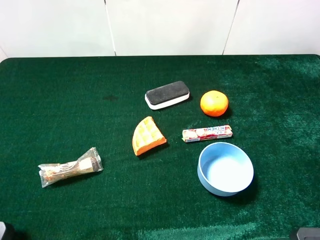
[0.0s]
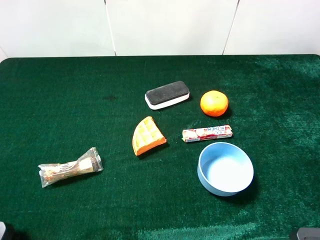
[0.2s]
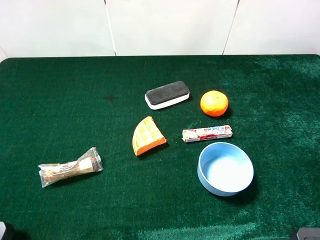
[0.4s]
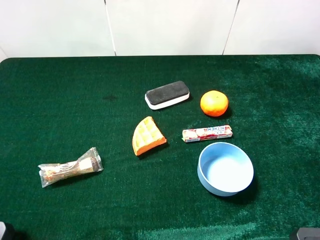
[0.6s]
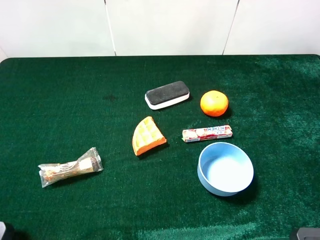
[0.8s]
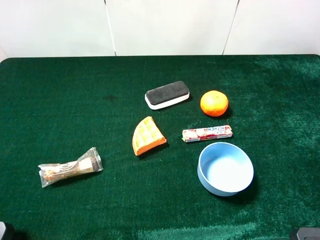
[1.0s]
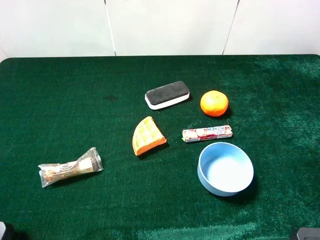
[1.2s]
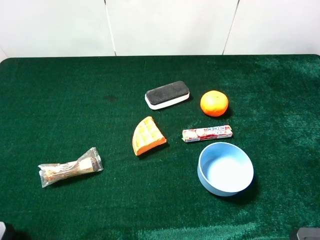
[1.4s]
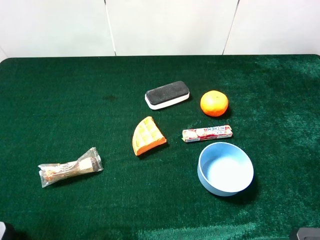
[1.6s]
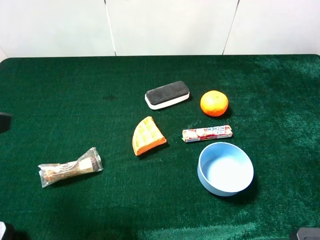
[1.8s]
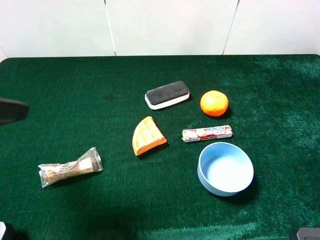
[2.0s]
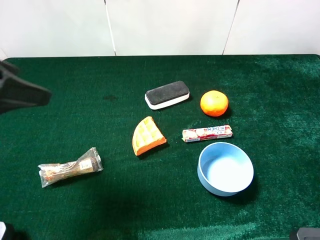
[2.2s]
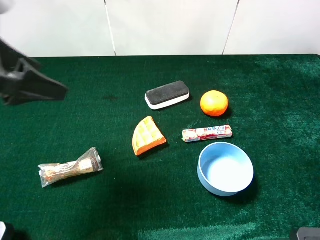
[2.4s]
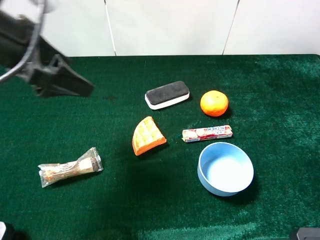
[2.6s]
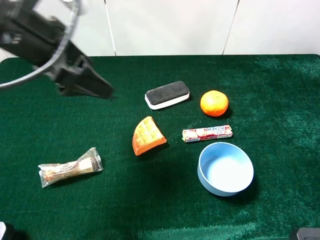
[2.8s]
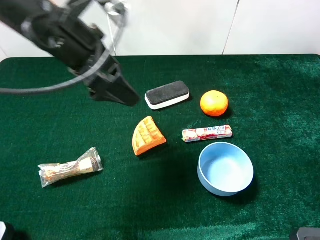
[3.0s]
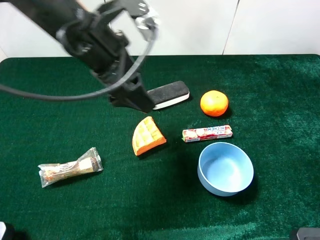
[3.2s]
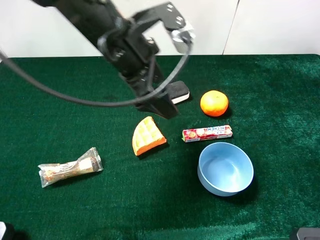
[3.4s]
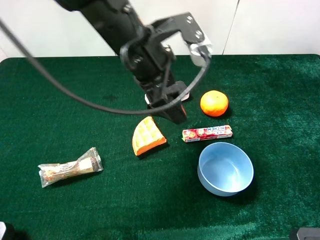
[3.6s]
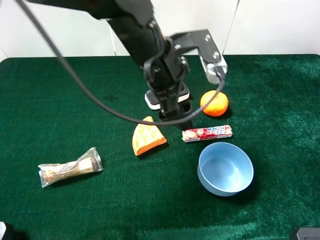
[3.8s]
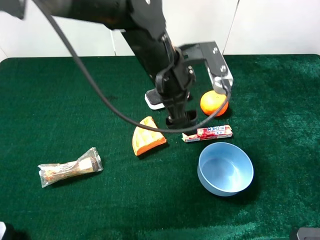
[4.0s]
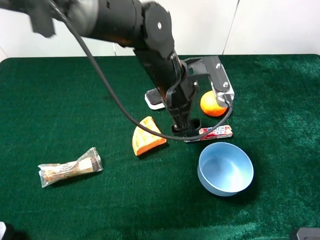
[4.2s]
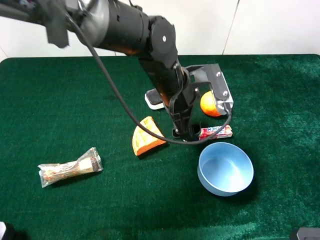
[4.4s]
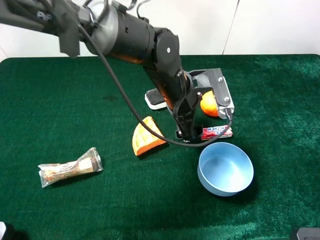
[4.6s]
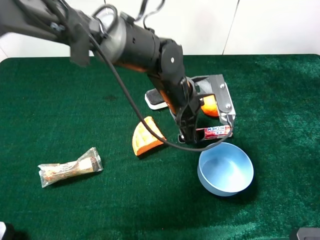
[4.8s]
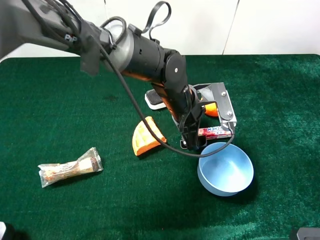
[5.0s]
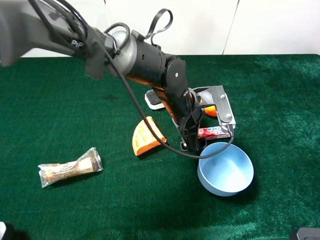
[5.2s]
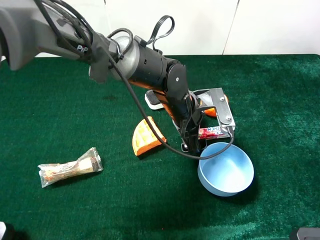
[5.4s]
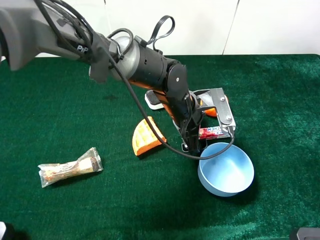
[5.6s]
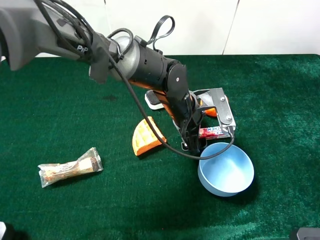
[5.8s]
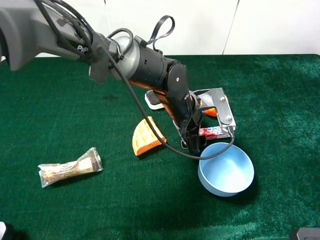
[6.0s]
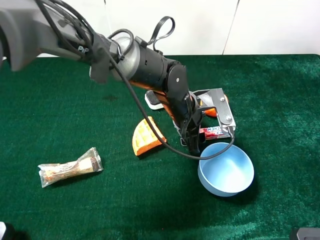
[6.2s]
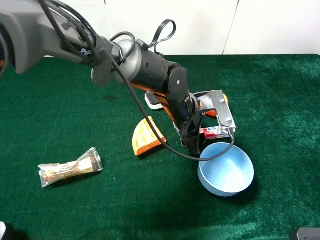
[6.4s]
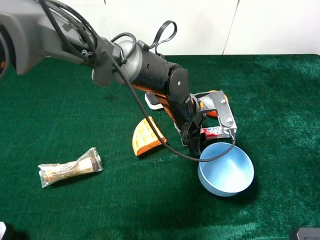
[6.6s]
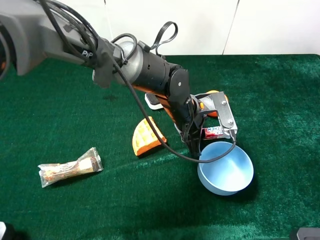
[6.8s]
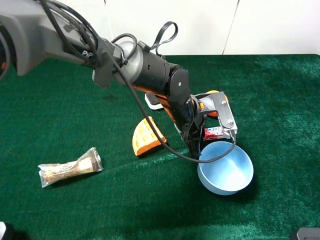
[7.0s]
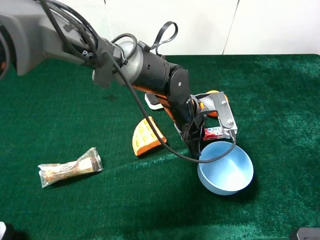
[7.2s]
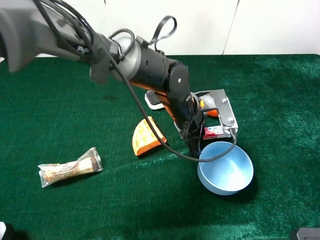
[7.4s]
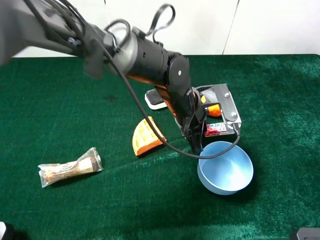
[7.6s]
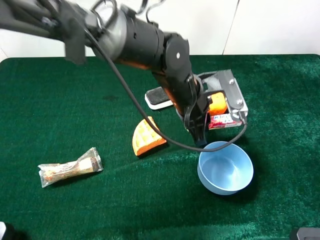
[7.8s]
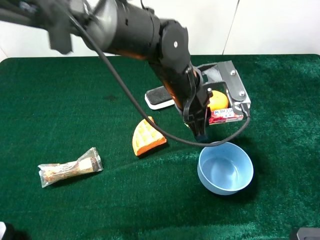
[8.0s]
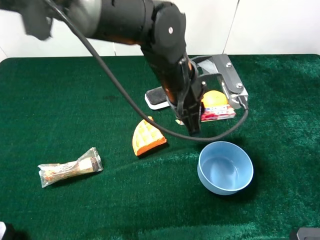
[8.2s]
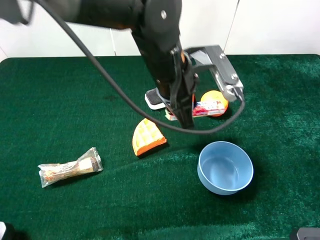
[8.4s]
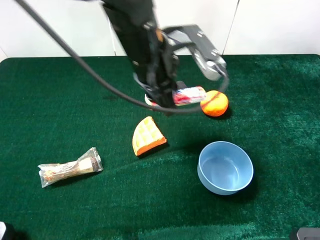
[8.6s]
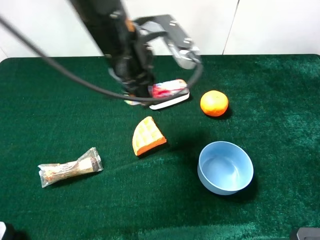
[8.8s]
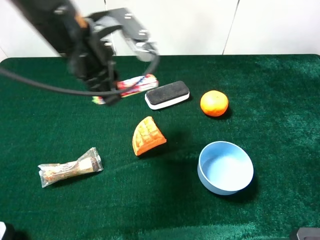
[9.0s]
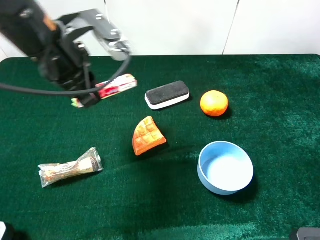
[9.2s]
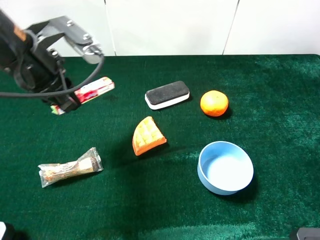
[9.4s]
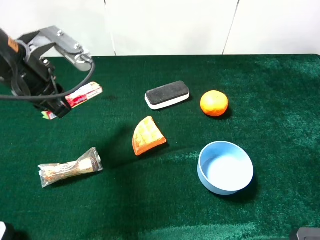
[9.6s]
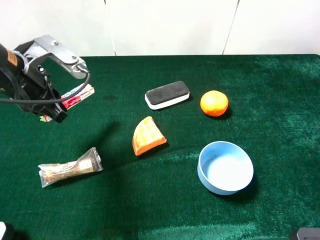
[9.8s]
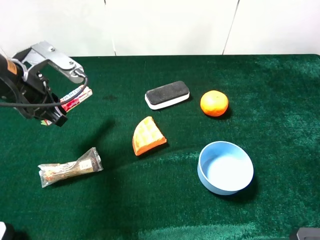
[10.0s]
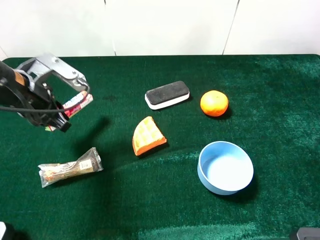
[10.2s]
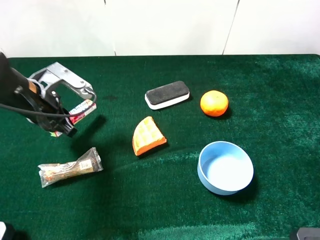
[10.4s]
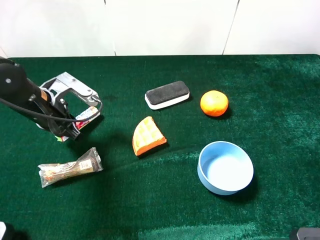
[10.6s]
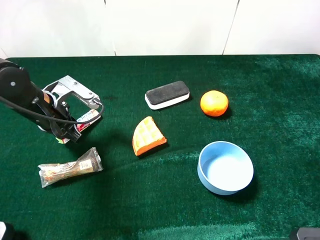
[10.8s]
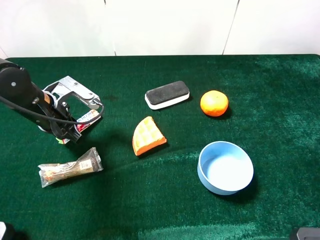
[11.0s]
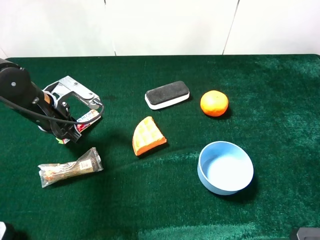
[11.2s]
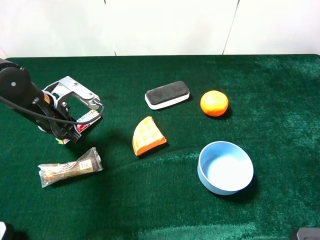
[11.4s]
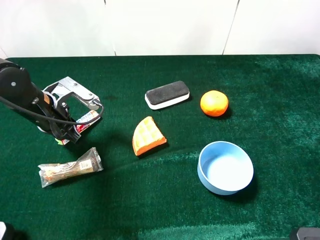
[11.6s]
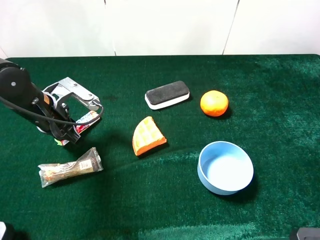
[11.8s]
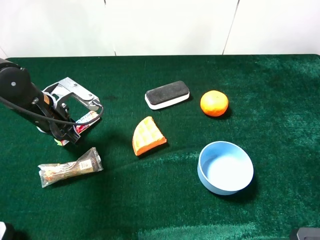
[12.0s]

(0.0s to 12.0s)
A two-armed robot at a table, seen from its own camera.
Task of the whole recording: the gripper move the object.
Step, 0.0s - 6.8s: Grasp the fruit candy with the left gripper.
1.6s - 3.0s: The left gripper goes approximately 25 cm forward and to the right.
3.0s - 4.4s: The left gripper shifts about 20 cm to the right and downward.
4.4s - 6.0s: The left gripper moves downward, roughly 5 cm.
6.0s - 7.6s: The left gripper closes up.
7.6s - 9.0s: The left gripper moves to the left and upward, approximately 20 cm.
9.0s - 10.4s: The left gripper is displaced downward and to the left by roughly 15 cm.
10.4s - 12.0s: The grippers move only a little.

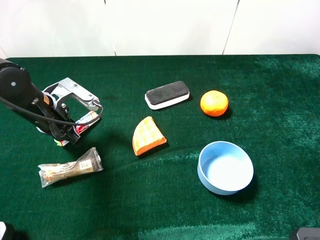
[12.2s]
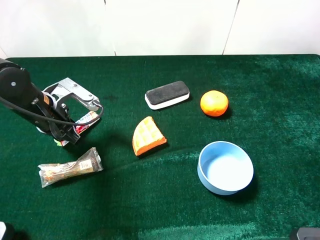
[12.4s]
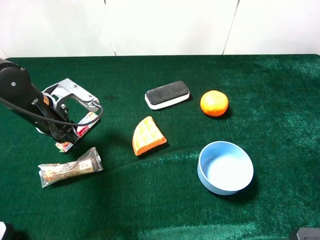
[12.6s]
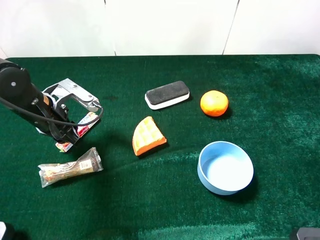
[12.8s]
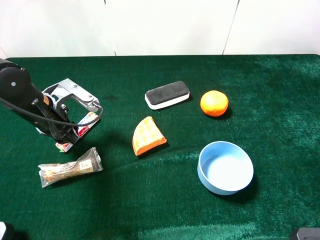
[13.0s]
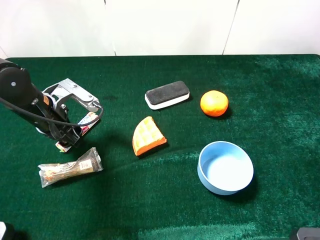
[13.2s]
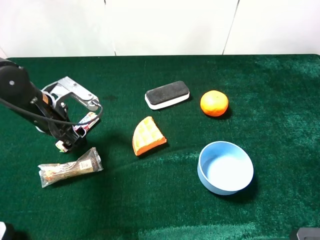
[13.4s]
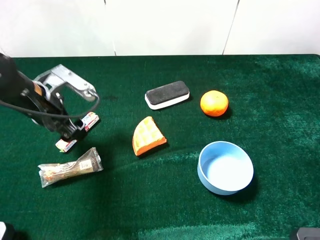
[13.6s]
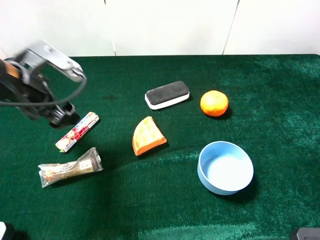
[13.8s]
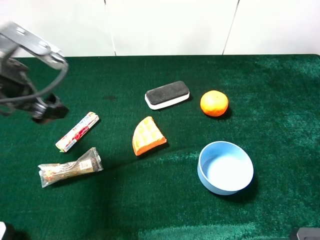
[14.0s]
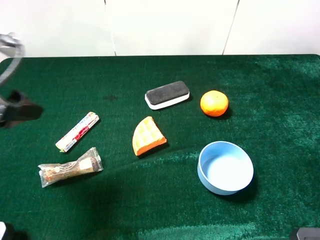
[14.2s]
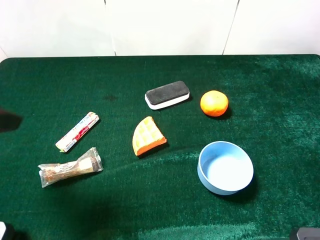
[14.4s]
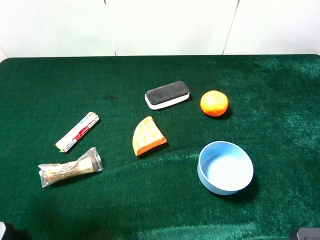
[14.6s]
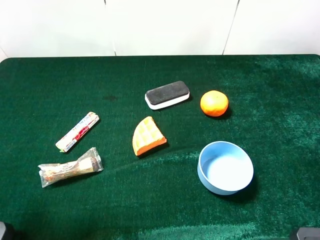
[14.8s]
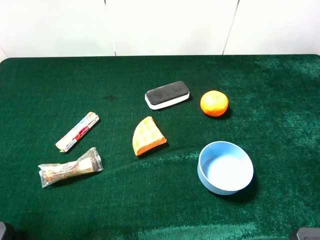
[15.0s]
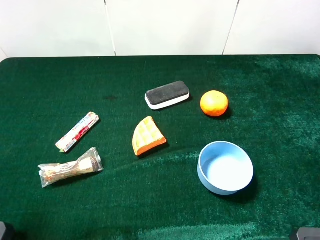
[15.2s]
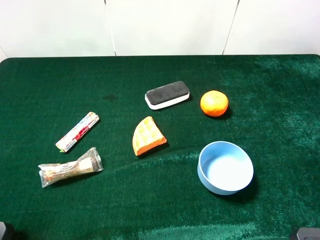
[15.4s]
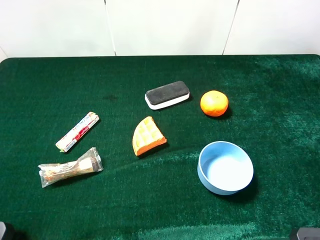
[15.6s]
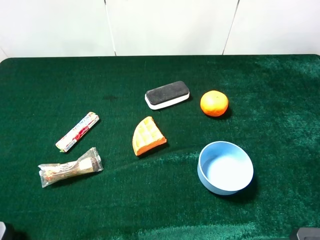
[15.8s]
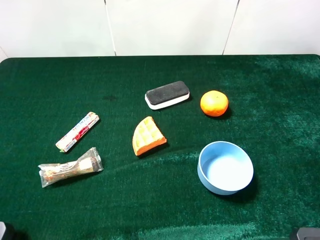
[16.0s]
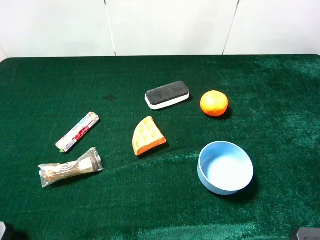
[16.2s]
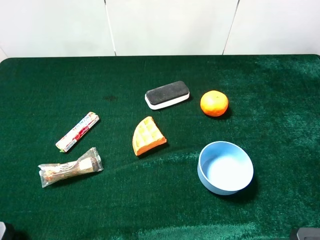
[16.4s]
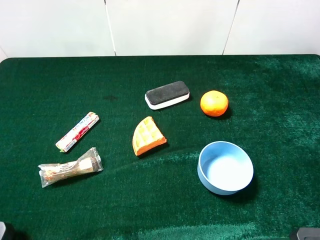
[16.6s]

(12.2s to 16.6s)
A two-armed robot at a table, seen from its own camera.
Task of the whole recording: the gripper move the object.
12.2s - 13.6s: The left gripper opens up.
13.6s - 15.2s: The left gripper goes some 25 cm backward and upward.

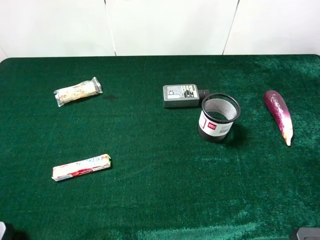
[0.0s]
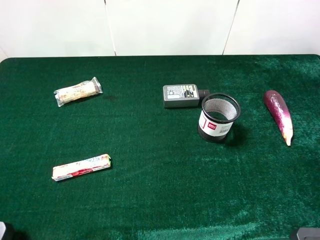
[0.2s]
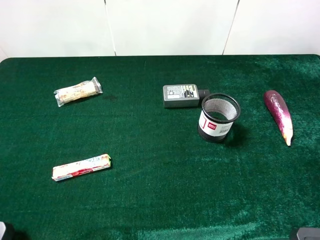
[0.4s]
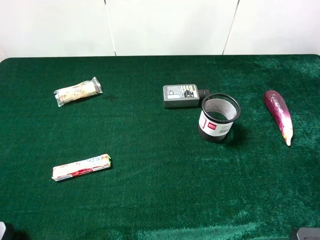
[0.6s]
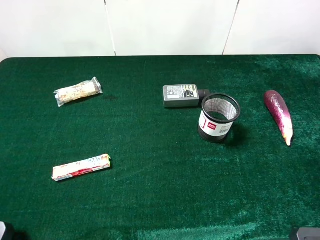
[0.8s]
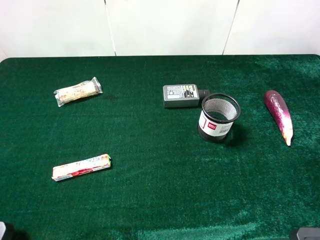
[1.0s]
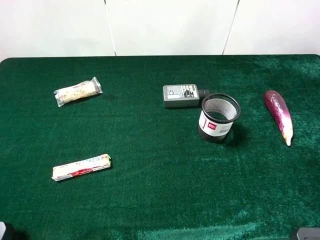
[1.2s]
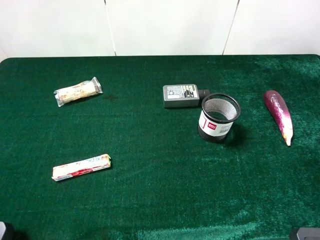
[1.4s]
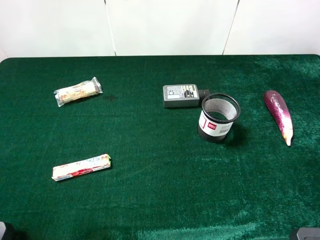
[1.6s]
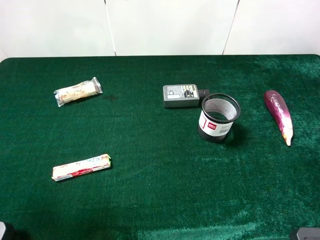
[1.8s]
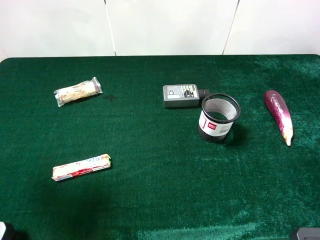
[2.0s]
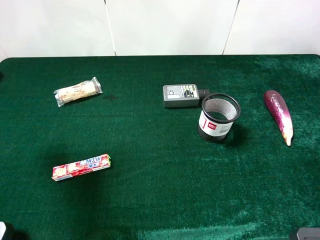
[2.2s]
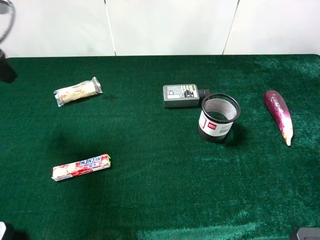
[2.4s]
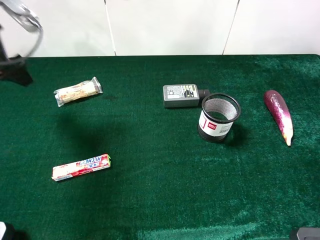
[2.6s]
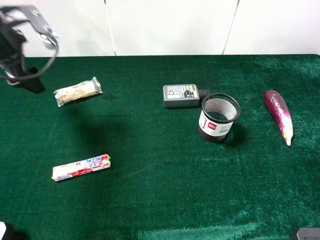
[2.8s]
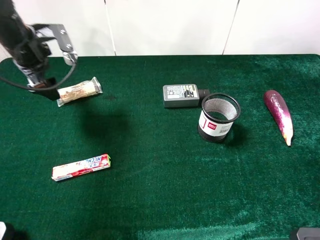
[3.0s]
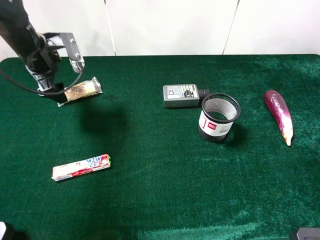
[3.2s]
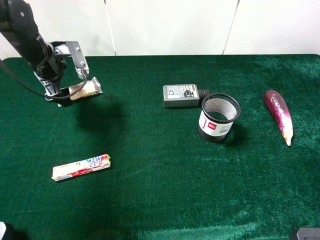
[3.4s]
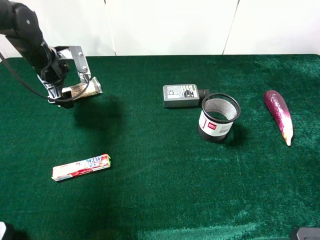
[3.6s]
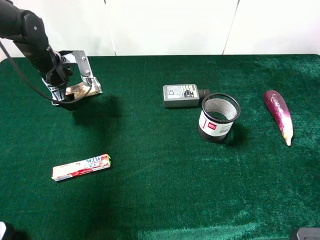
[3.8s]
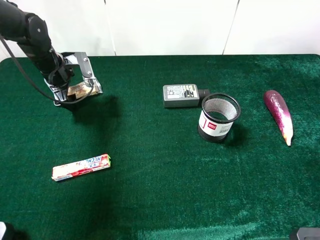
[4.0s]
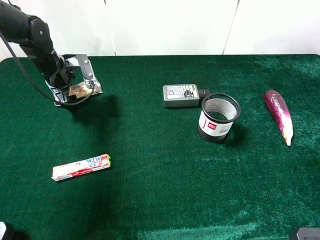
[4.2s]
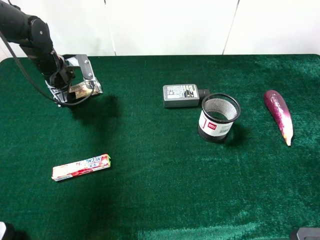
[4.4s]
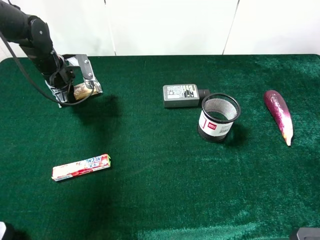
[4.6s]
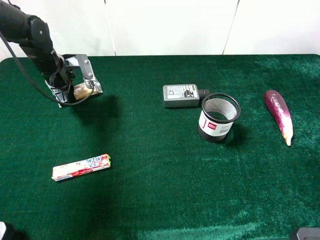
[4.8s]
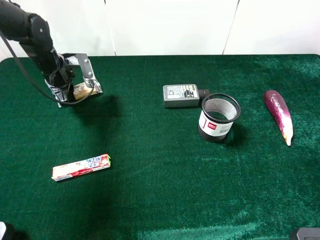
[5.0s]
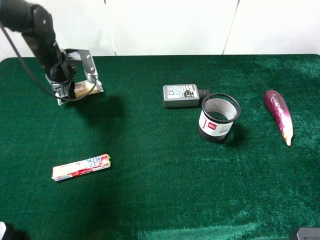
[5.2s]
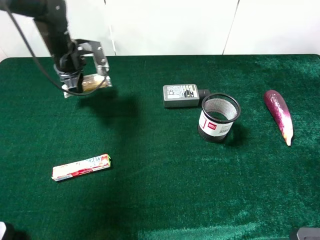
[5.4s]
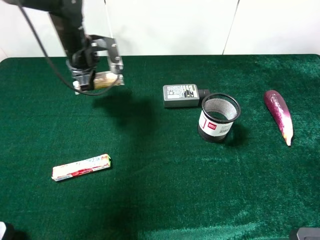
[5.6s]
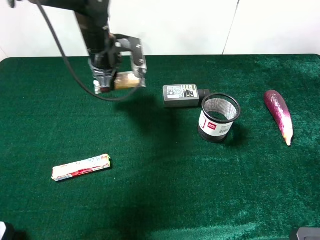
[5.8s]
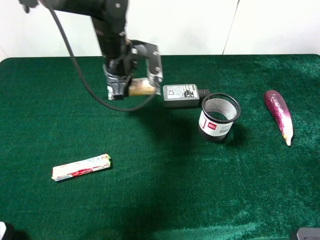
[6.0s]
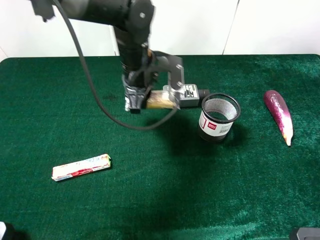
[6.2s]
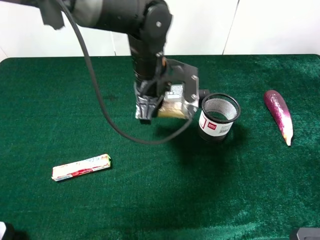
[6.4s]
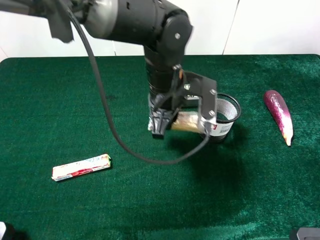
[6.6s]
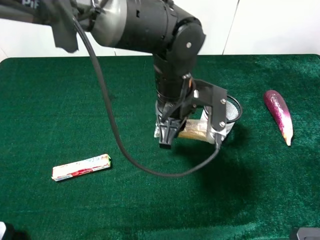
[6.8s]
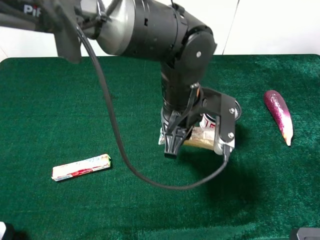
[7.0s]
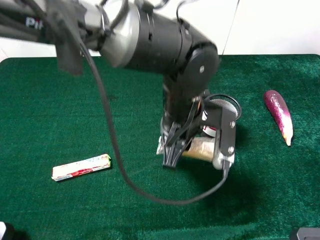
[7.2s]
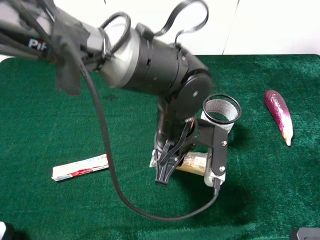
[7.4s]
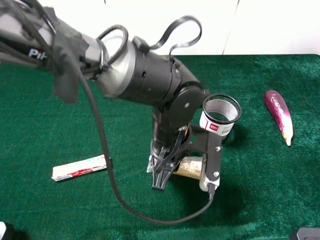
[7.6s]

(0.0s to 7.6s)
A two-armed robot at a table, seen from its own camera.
Task of the whole recording: the gripper move the object.
Step, 0.0s - 4.6s: Grasp the chocolate with the left gripper.
1.6s - 3.0s: The left gripper travels forward by some 30 cm.
3.0s - 4.6s: The left gripper is displaced downward by roughly 10 cm, and closes.
4.6s - 6.0s: The left gripper travels to the right by approximately 20 cm.
6.0s - 7.6s: The left gripper moves backward and to the right, approximately 20 cm.
